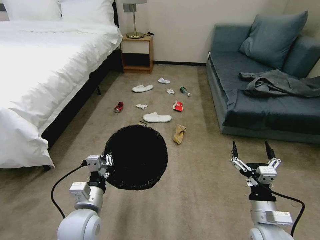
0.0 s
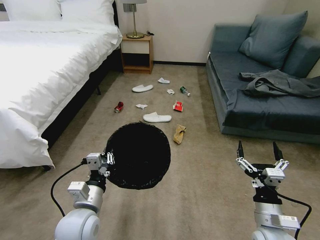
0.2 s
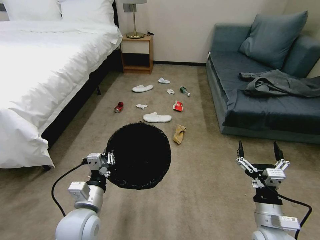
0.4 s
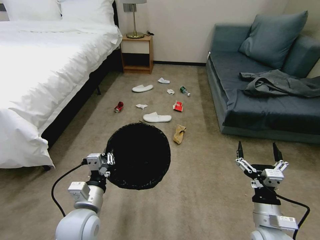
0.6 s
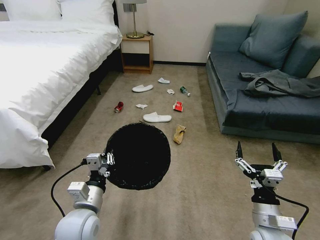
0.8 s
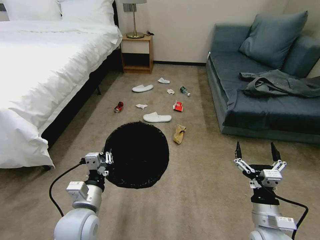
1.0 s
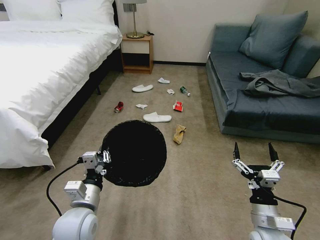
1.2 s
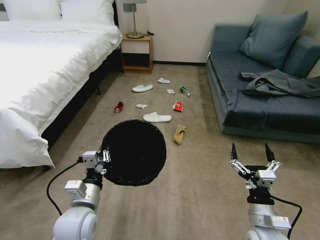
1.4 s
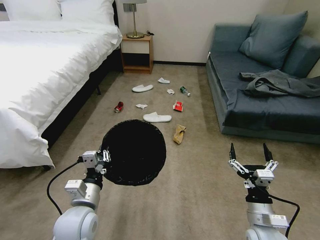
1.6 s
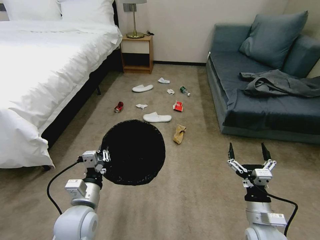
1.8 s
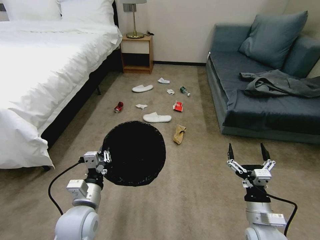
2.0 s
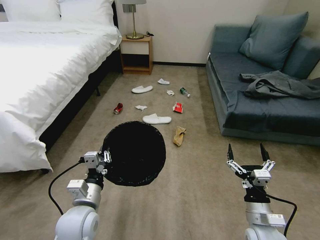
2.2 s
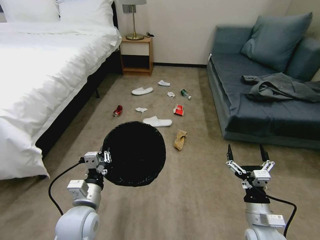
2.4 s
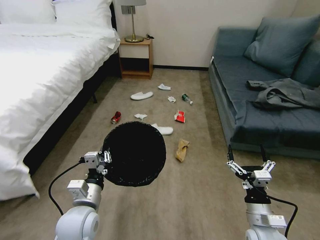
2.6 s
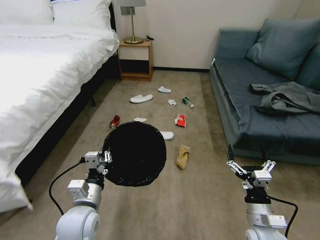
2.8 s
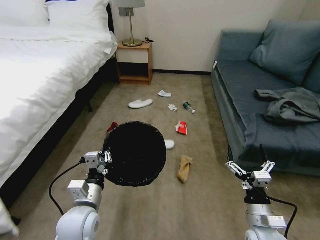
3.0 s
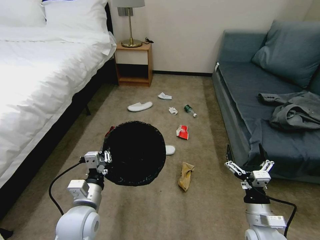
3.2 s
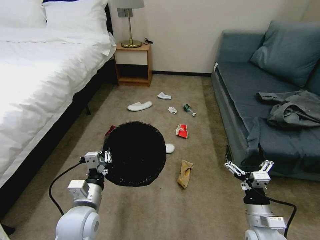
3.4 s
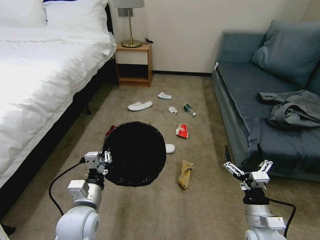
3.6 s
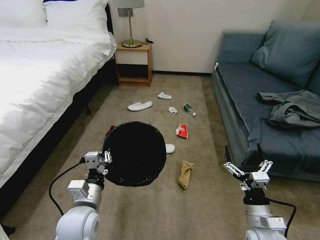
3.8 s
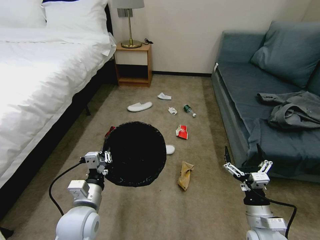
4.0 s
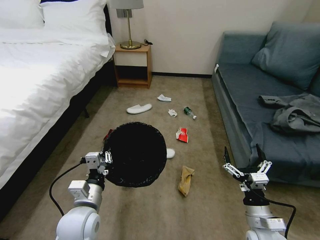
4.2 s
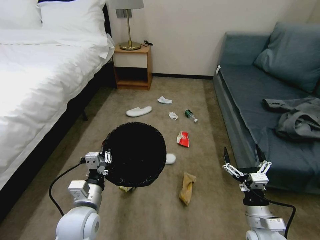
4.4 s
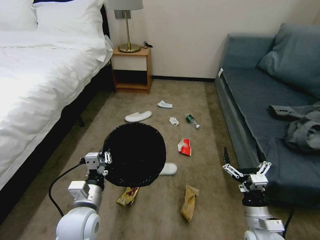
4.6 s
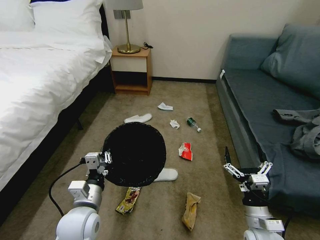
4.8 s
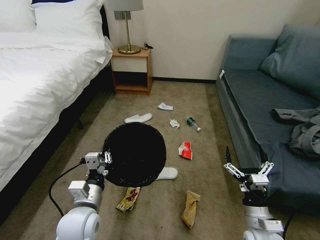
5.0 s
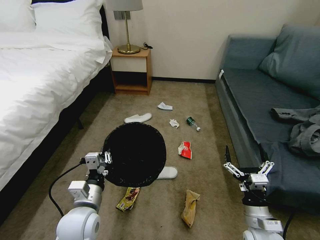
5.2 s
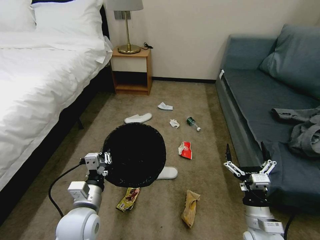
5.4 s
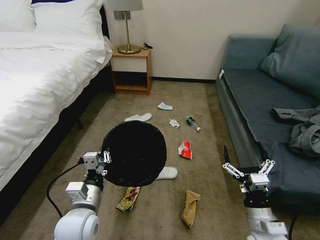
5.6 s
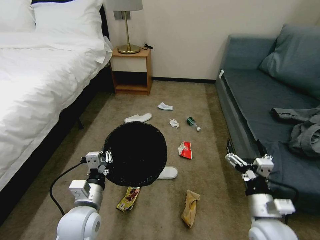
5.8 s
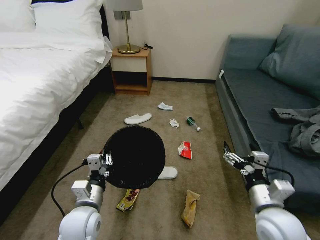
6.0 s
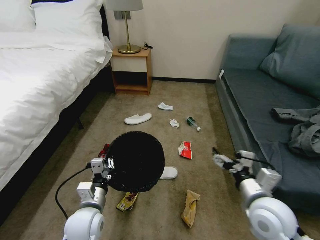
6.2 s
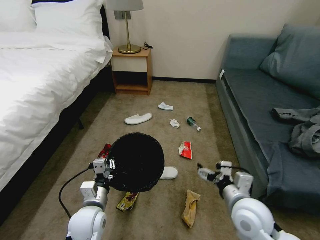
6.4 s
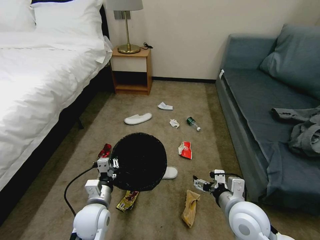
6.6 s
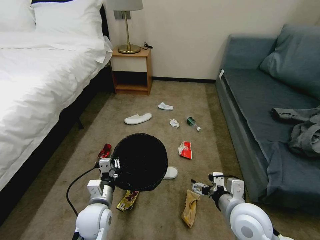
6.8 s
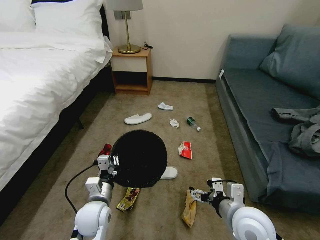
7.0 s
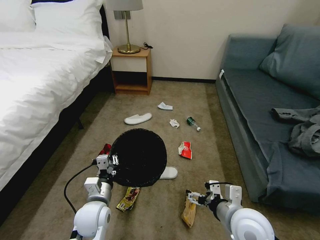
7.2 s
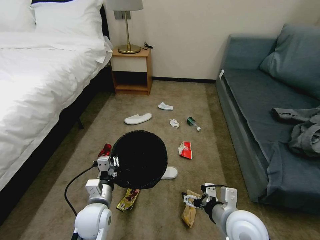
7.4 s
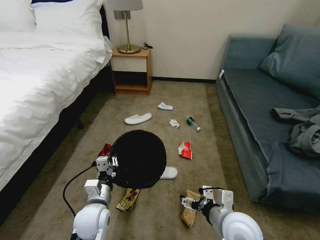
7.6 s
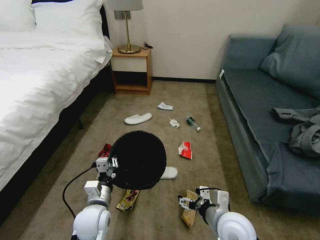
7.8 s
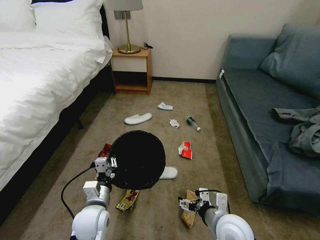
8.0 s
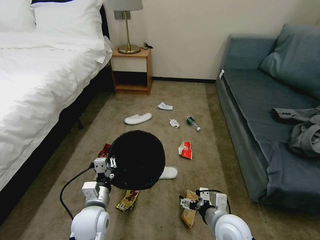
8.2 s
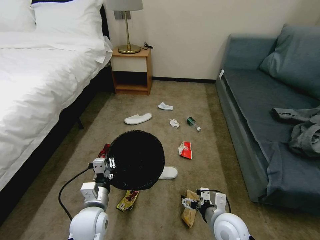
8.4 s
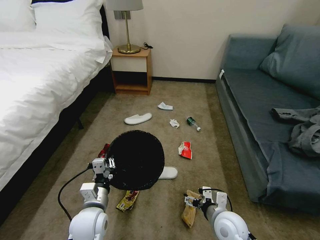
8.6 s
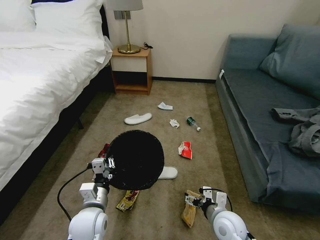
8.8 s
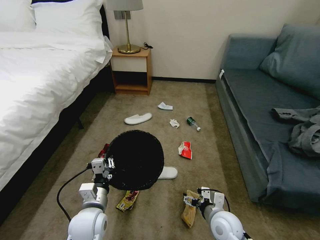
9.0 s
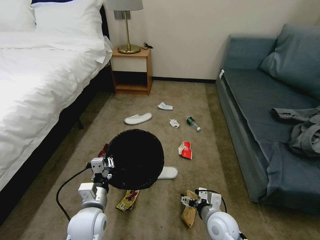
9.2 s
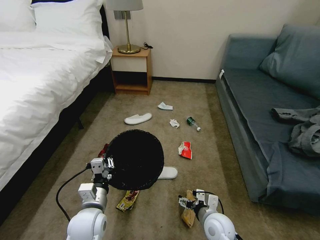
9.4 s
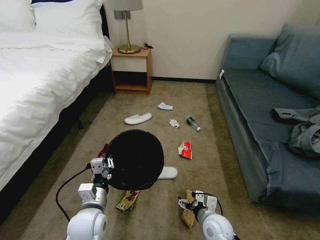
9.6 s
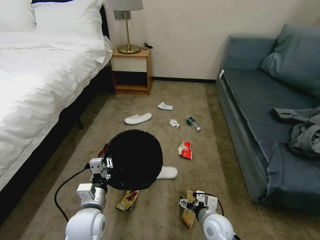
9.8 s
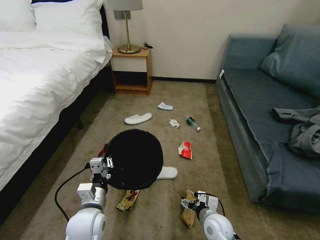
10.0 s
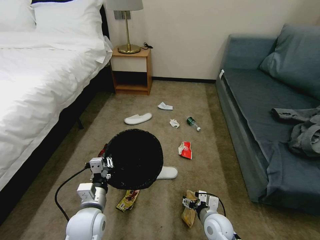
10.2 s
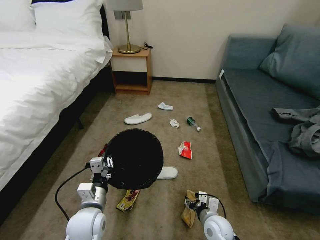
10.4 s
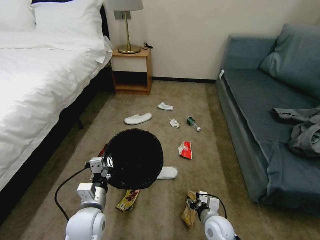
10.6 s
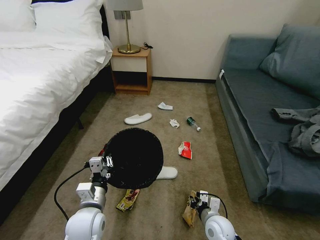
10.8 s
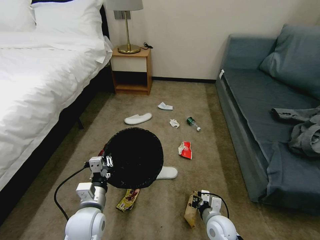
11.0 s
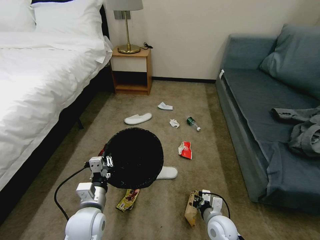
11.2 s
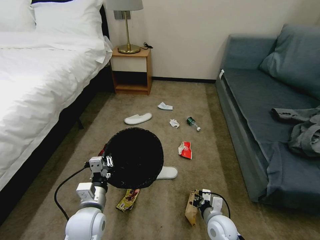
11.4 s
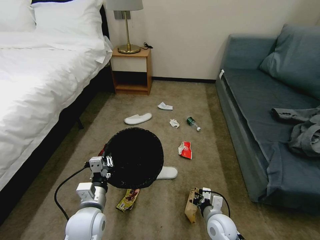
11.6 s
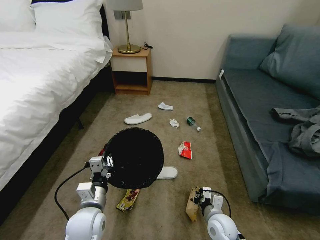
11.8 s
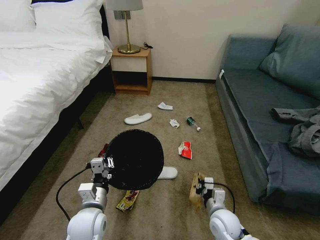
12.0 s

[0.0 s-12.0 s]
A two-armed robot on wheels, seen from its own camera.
Task of the whole recording: Pick up the trash bin, then pick up the garbage on the floor and place it into the trash bin.
6.0 to 7.6 s: The left gripper goes roughly 5 cm downward; the right gripper moves to the left, some 5 cm.
7.6 to 9.0 s: The right gripper travels downward by about 10 cm.
9.0 to 10.4 s: The right gripper shifts some 5 cm downward.
10.4 to 12.0 s: The right gripper closes up.

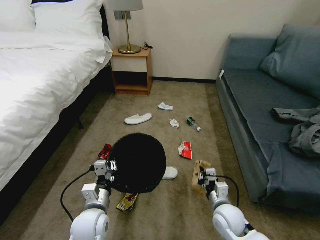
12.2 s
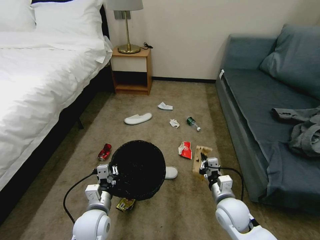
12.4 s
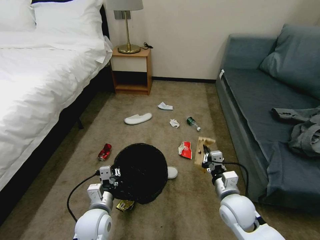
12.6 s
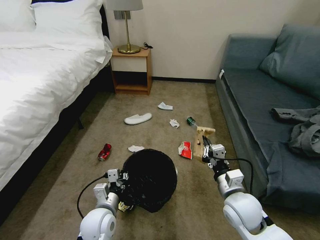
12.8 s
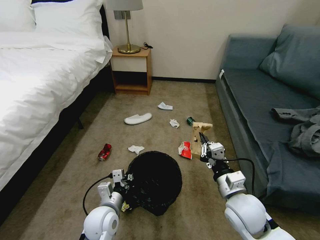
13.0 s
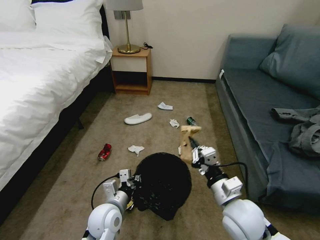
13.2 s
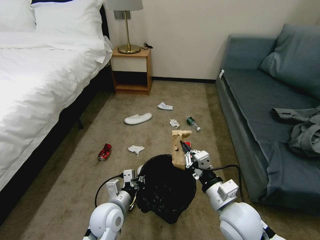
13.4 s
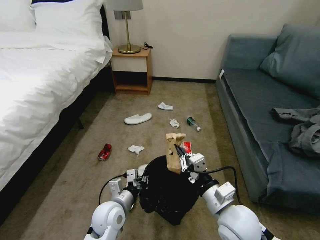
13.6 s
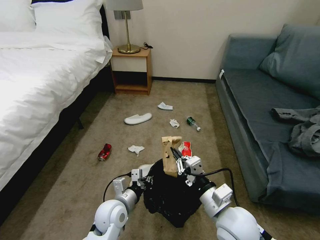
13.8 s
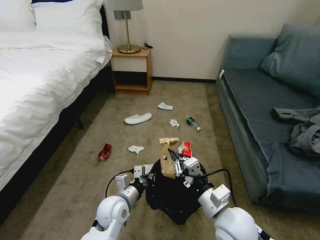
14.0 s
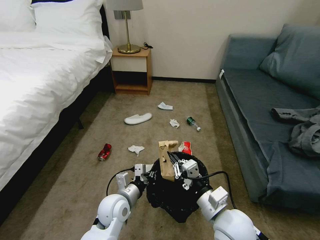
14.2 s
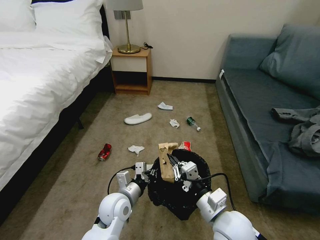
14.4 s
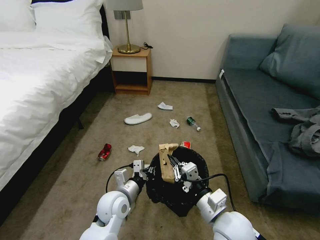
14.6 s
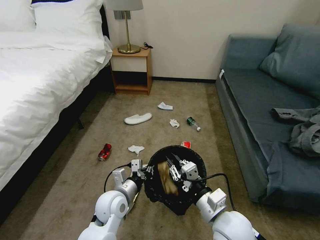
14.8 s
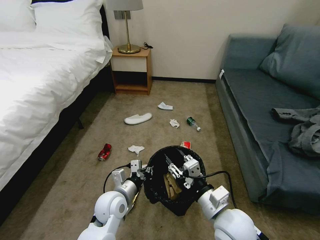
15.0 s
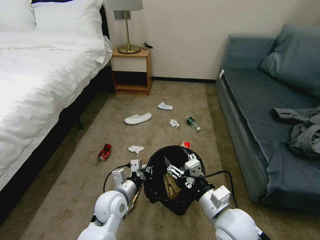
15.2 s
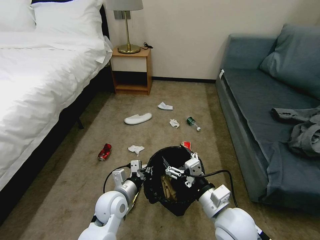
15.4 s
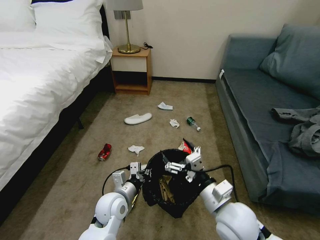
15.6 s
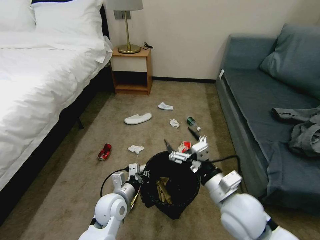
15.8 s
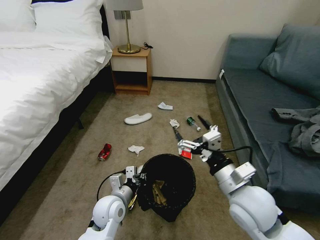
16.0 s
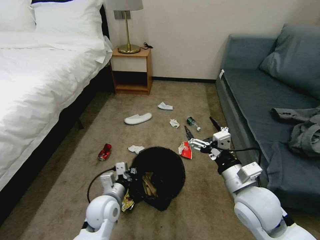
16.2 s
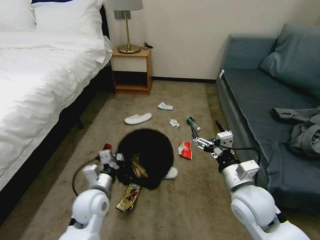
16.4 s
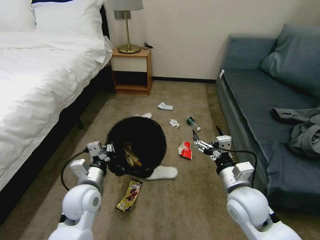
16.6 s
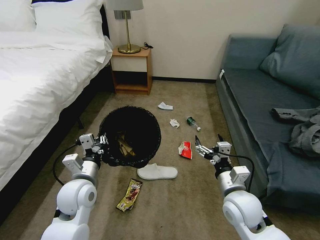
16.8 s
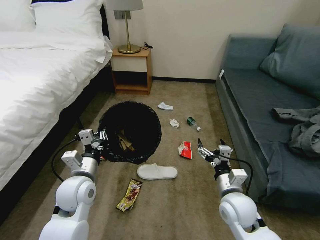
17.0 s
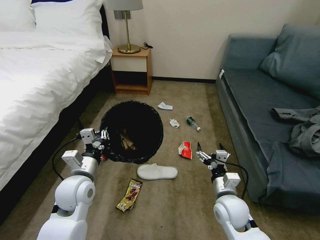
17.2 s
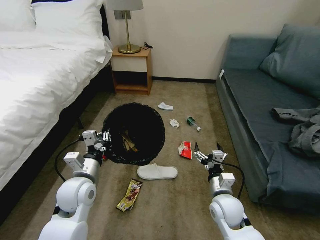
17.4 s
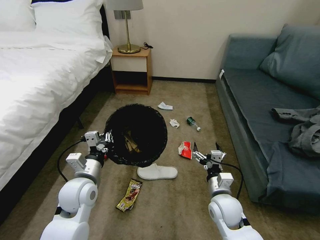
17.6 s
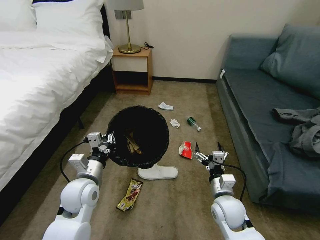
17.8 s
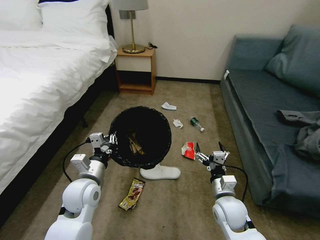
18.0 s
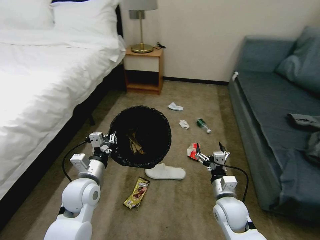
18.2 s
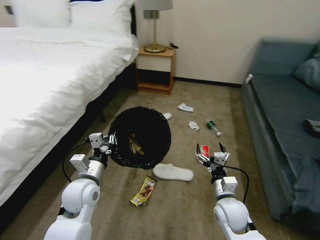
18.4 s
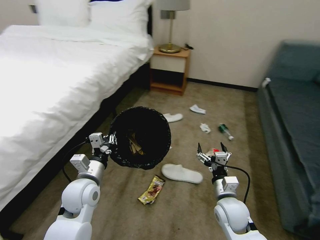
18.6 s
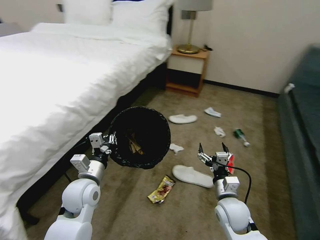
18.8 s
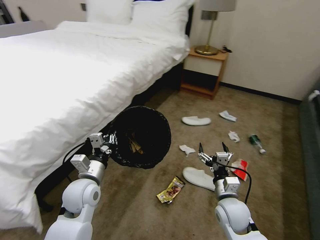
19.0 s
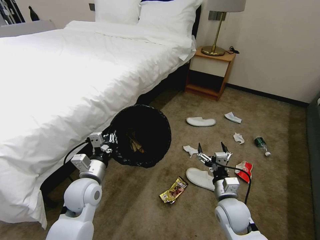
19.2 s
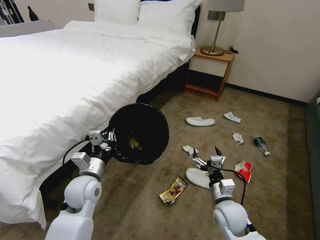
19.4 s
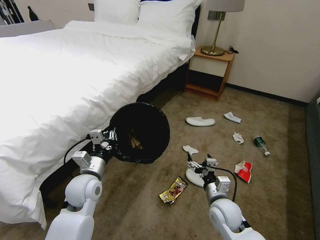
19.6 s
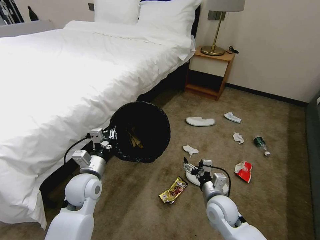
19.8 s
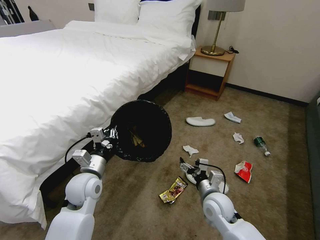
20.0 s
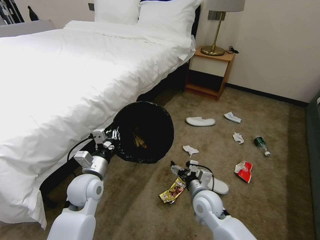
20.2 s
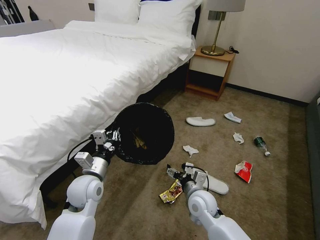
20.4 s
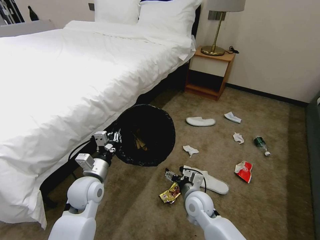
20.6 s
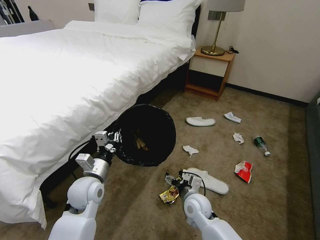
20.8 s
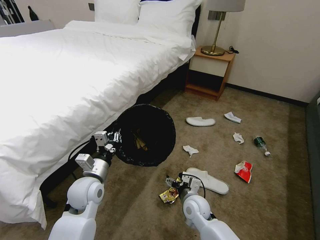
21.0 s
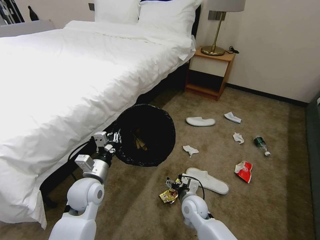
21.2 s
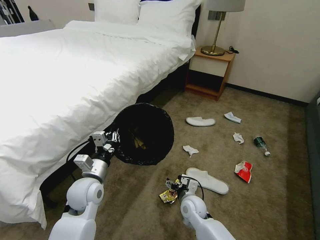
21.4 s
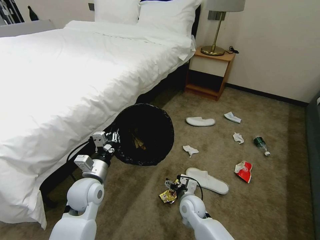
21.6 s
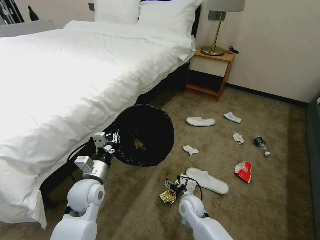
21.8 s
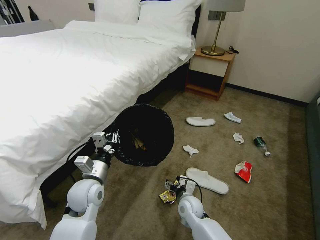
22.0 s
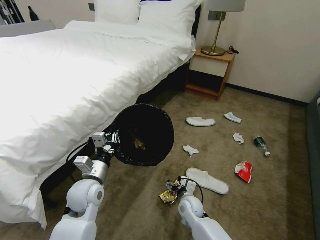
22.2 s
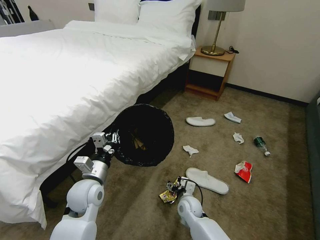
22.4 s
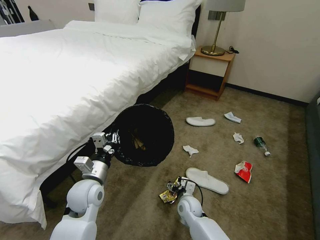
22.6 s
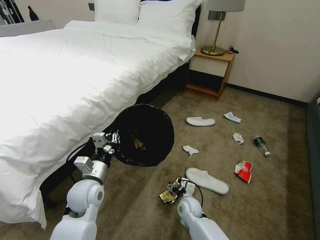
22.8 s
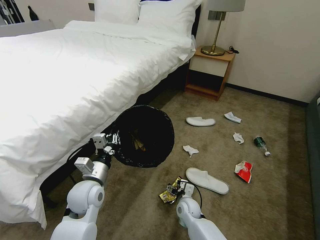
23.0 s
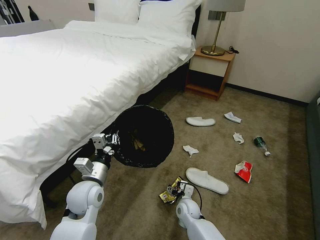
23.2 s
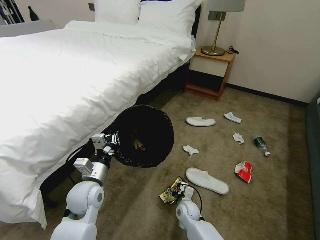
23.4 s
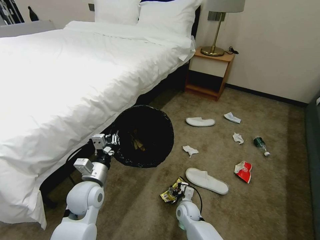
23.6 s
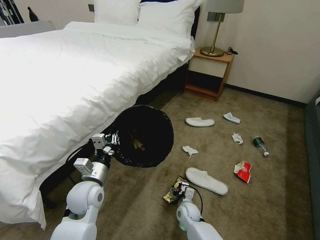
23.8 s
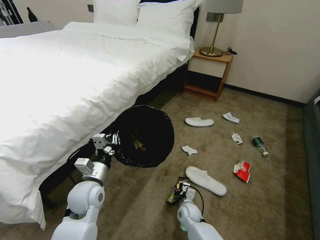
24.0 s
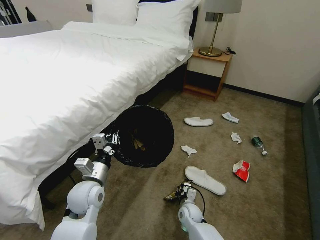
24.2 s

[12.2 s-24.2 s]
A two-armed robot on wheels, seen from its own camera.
Task of the whole recording: Pick up the trash bin, then pick up the garbage on the floor and place it into the trash bin.
12.2 to 13.8 s: The left gripper shifts by approximately 5 cm. Meanwhile the right gripper moves upward, some 15 cm.
13.8 to 15.2 s: The right gripper opens.
15.2 to 16.6 s: The right gripper shifts roughly 5 cm forward. Meanwhile the left gripper travels to the left and upward by approximately 10 cm.
16.6 to 18.2 s: The right gripper shifts about 10 cm downward.
19.8 to 21.2 s: The right gripper travels to the left and downward by roughly 10 cm.
21.2 to 22.6 s: The right gripper goes approximately 5 cm downward.
22.6 to 24.2 s: The right gripper travels downward by approximately 5 cm, and closes.
